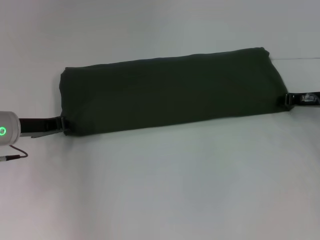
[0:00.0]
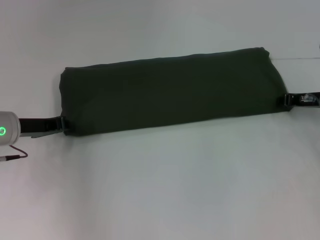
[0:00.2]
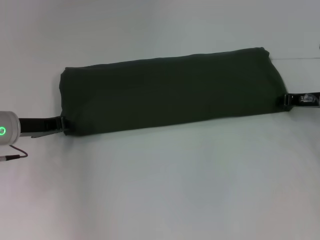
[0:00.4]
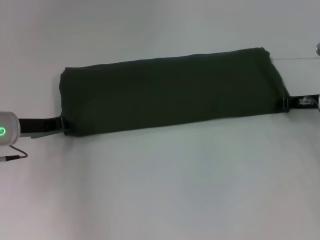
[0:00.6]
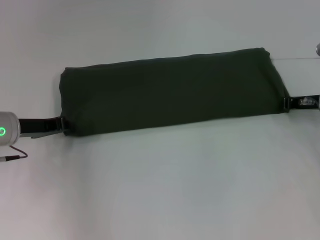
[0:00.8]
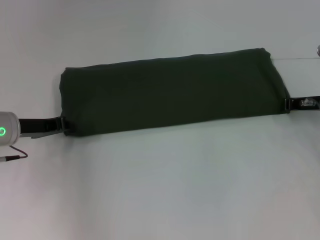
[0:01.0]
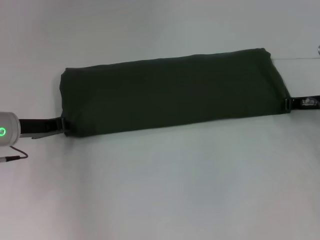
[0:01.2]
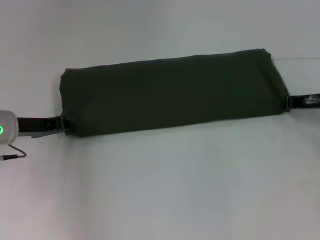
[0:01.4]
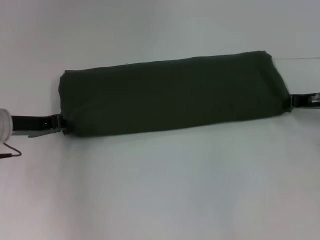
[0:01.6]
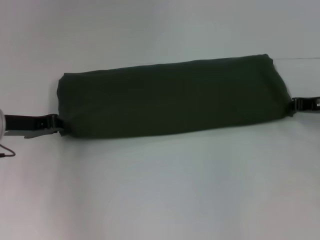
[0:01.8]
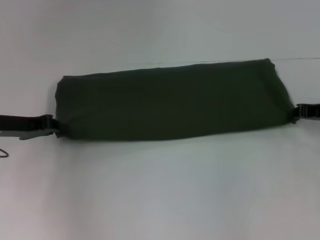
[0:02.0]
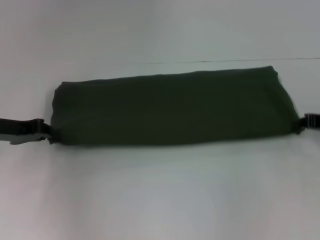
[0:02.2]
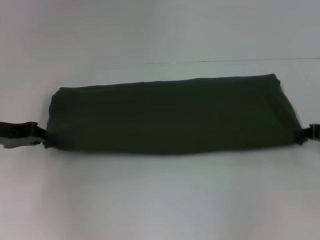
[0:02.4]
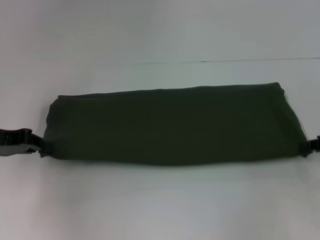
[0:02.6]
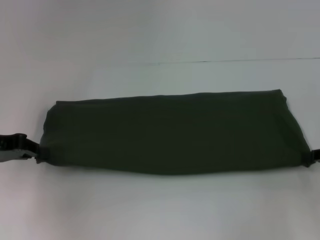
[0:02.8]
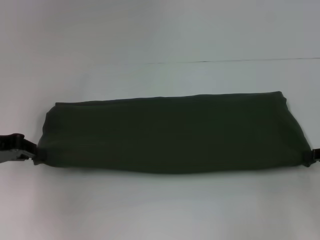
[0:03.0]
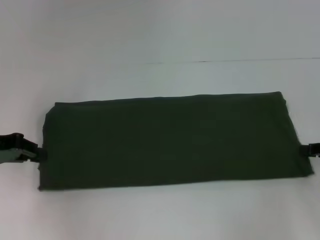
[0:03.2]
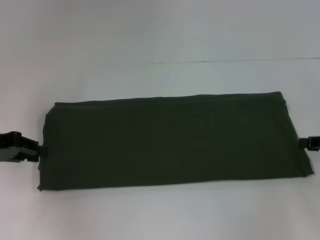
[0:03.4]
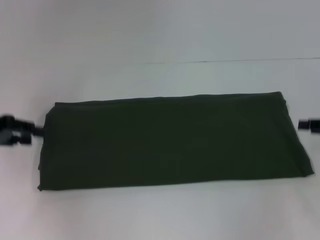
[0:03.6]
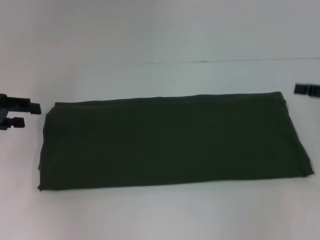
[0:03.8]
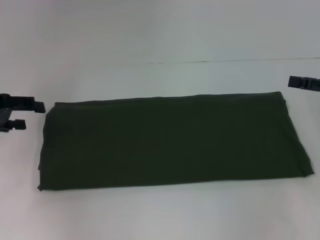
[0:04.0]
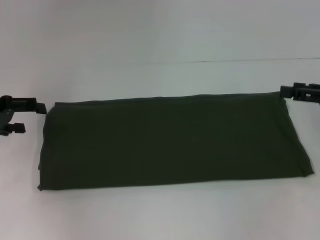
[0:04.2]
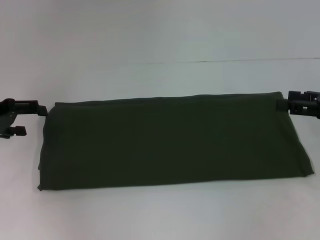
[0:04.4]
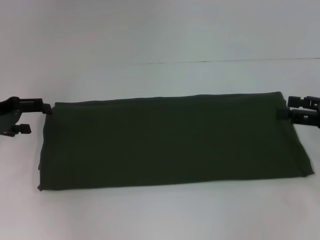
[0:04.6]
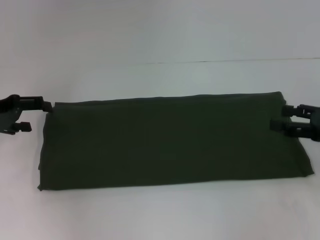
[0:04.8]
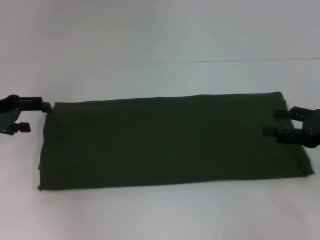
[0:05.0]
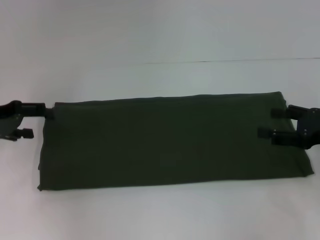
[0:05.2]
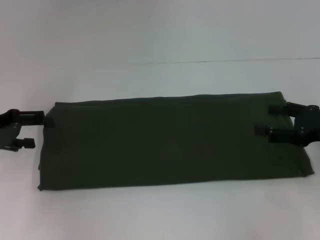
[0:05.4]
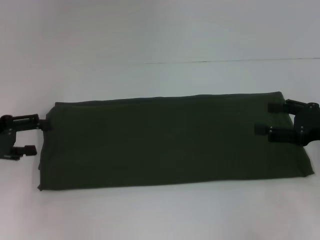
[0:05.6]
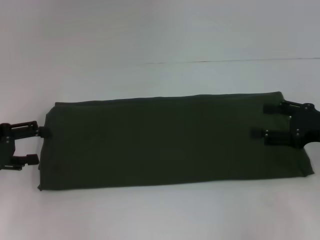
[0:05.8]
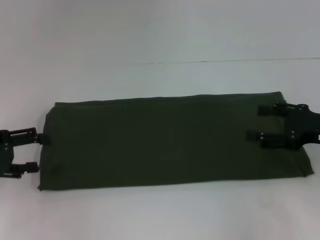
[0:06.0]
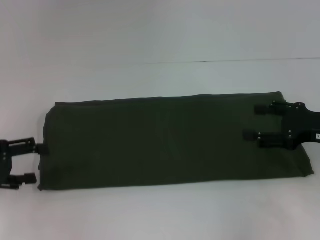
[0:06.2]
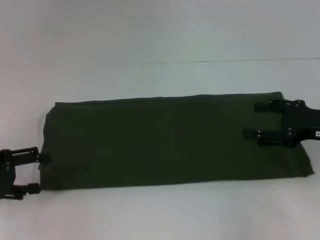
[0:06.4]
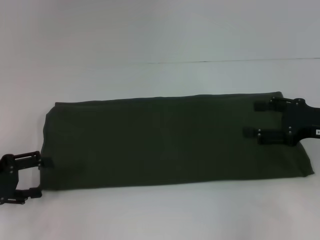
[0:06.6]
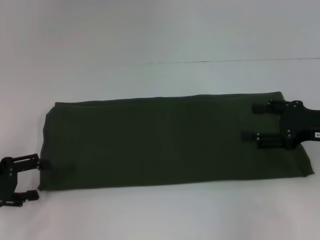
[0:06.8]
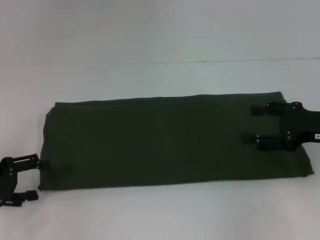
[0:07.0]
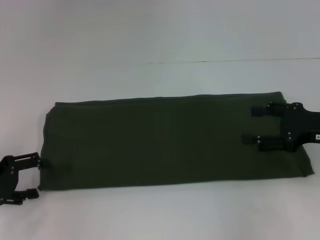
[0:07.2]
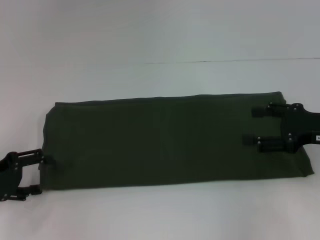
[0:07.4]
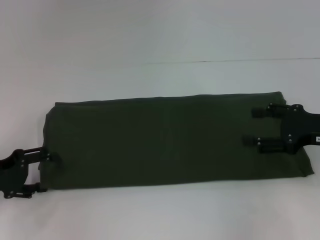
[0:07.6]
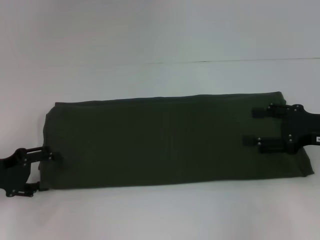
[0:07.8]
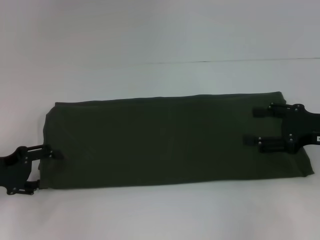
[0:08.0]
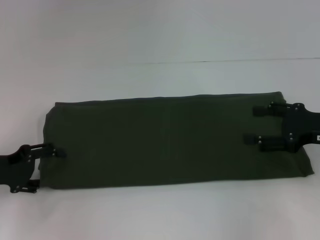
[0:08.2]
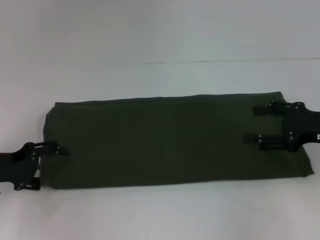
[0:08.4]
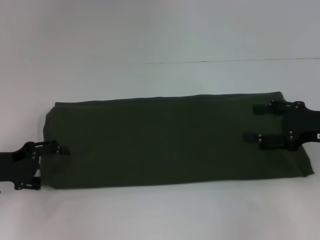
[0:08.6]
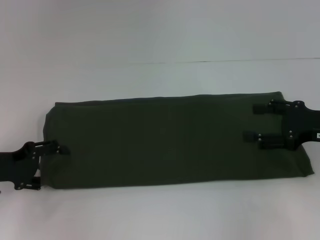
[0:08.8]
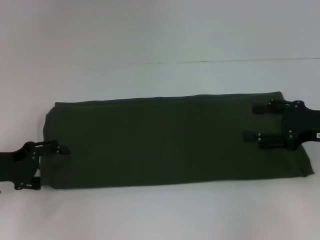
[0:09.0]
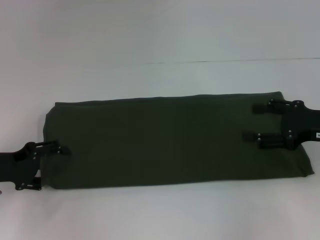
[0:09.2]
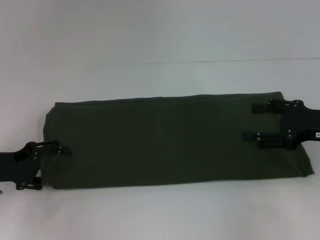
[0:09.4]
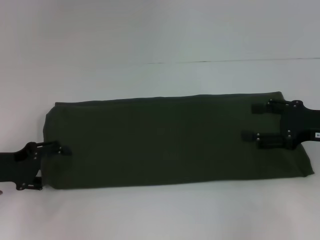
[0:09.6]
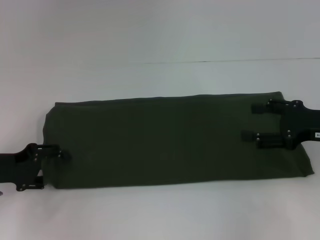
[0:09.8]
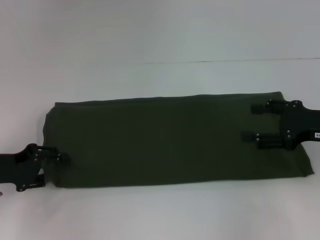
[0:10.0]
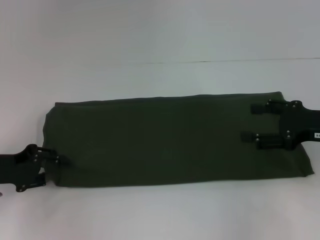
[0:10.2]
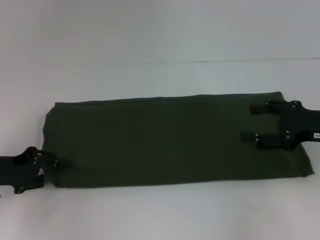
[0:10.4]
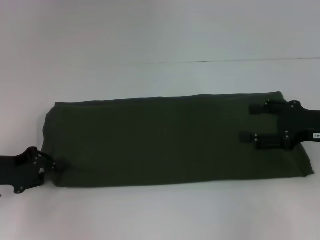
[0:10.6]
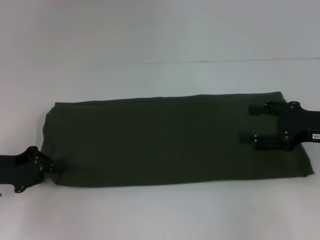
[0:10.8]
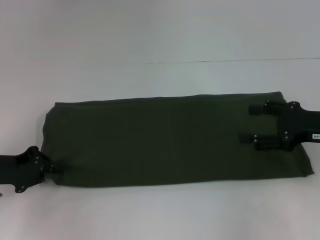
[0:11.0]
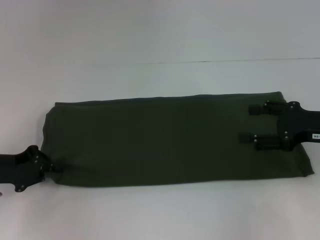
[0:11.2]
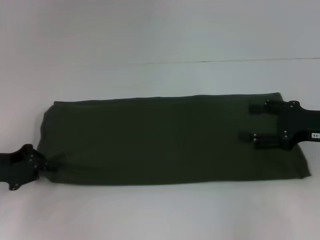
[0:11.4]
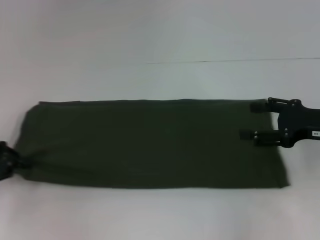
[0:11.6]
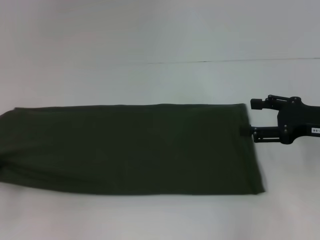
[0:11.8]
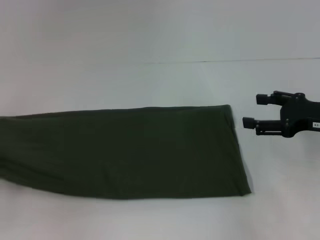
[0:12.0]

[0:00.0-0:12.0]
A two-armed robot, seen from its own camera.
Step, 0:00.0 to 0:03.4: Pull the clothes with your left hand.
Step, 0:00.0 to 0:03.4: Pull the clothes with your right hand.
0:00.0 to 0:01.6: The grippers make only small movements.
0:01.6 to 0:03.0: The right gripper moves backward, some 10 cm. Meanwhile the left gripper heads to the left, covering some 5 cm.
0:03.0 to 0:04.4: The left gripper opens; the right gripper changes place by some 5 cm, and opens its fingers.
0:04.4 to 0:06.0: The left gripper heads backward, covering about 5 cm.
0:06.0 to 0:09.0: The grippers make only small movements.
0:09.0 to 0:10.4: The left gripper closes its fingers.
0:10.4 to 0:12.0: The left gripper is displaced to the left and upward by approximately 10 cm, and closes up.

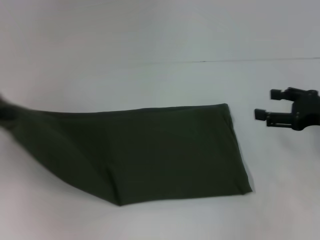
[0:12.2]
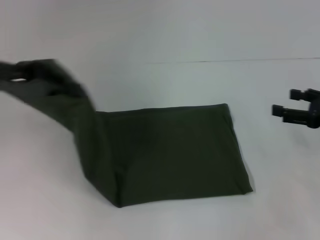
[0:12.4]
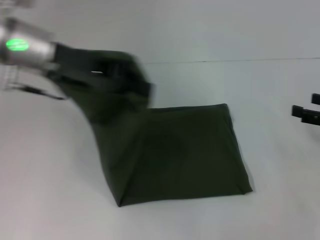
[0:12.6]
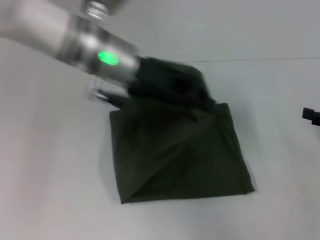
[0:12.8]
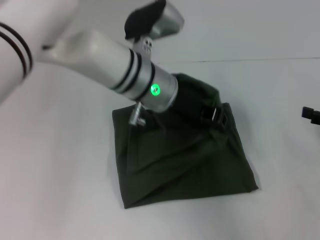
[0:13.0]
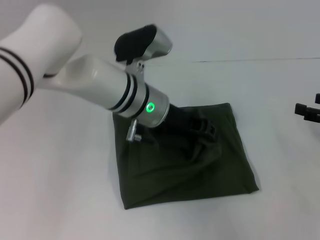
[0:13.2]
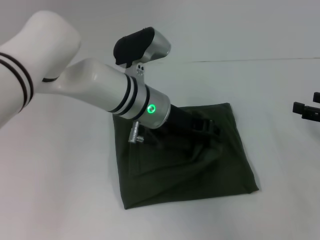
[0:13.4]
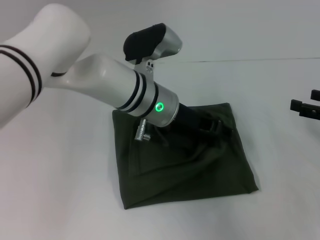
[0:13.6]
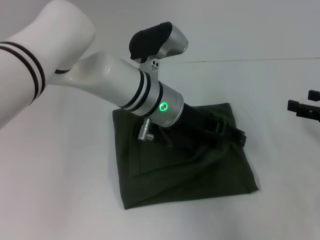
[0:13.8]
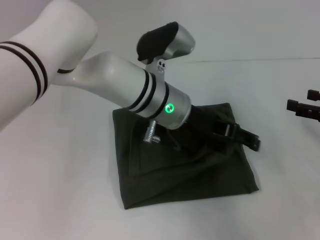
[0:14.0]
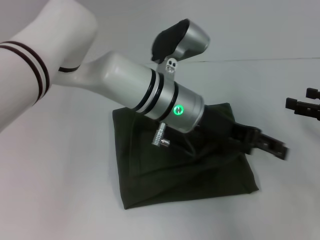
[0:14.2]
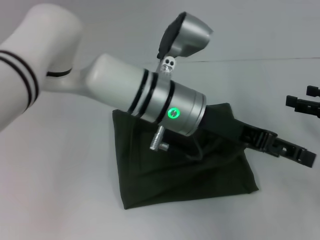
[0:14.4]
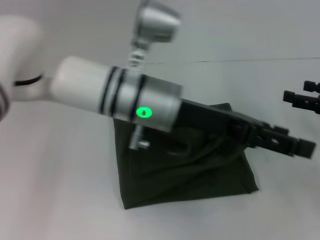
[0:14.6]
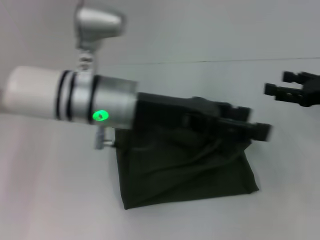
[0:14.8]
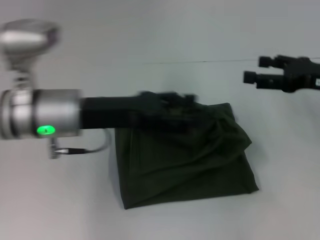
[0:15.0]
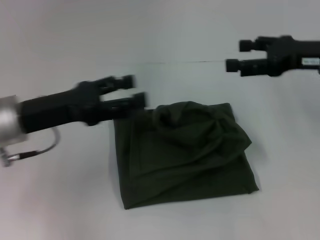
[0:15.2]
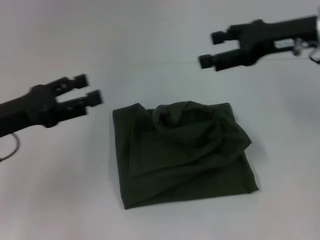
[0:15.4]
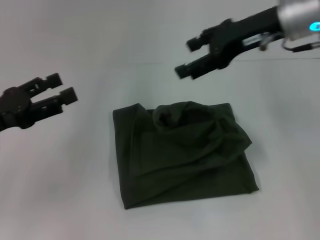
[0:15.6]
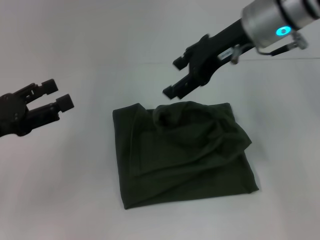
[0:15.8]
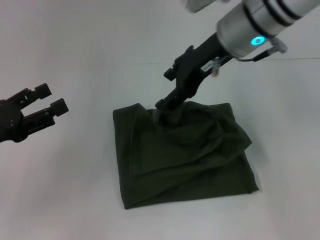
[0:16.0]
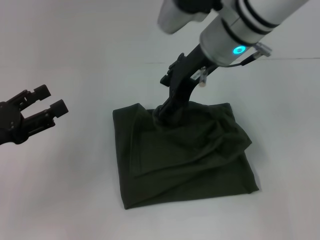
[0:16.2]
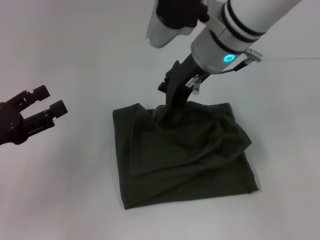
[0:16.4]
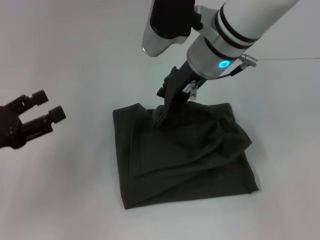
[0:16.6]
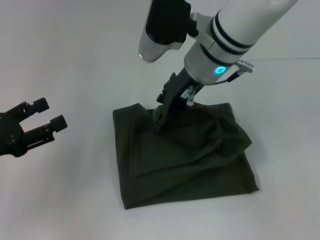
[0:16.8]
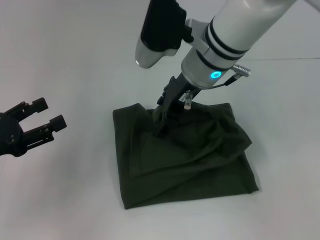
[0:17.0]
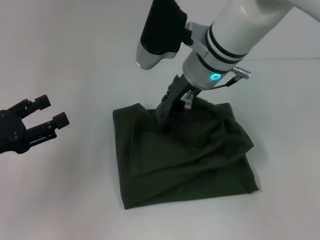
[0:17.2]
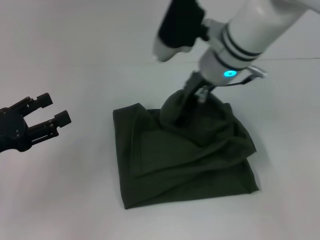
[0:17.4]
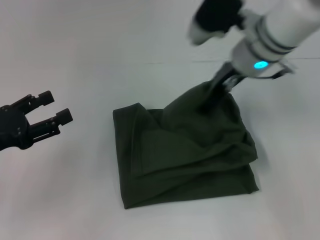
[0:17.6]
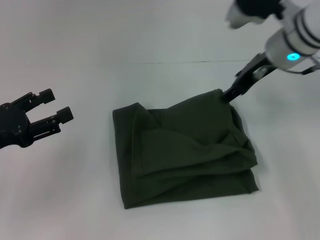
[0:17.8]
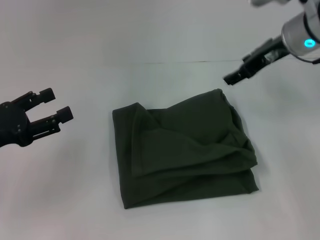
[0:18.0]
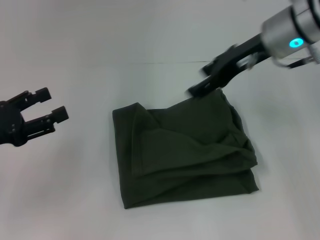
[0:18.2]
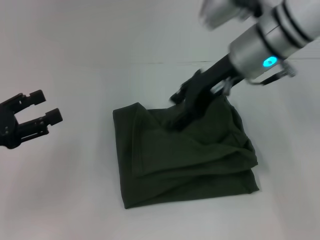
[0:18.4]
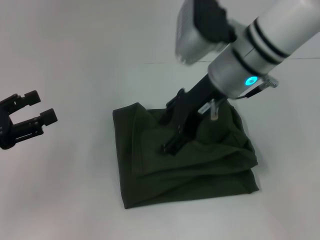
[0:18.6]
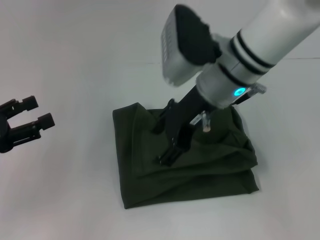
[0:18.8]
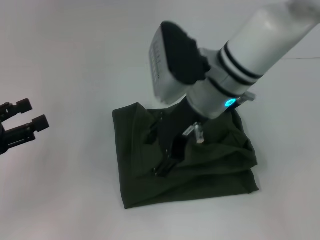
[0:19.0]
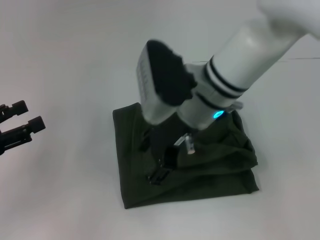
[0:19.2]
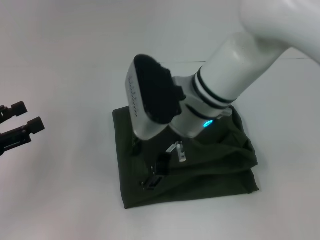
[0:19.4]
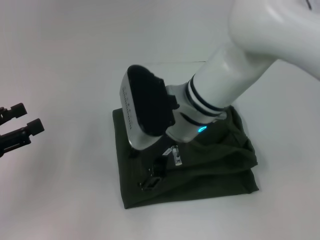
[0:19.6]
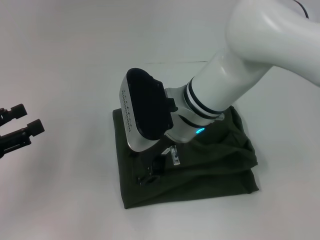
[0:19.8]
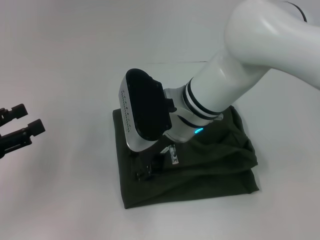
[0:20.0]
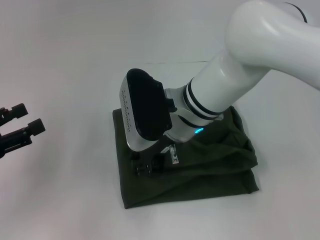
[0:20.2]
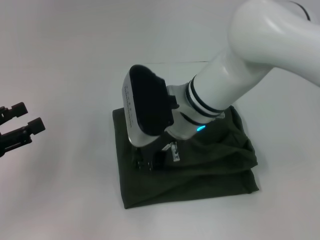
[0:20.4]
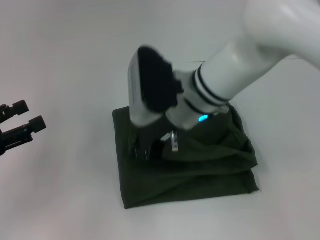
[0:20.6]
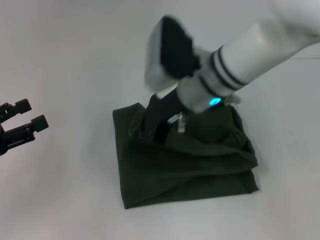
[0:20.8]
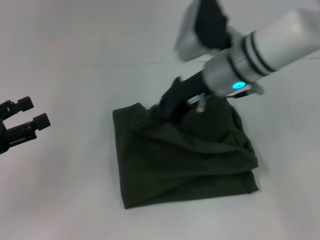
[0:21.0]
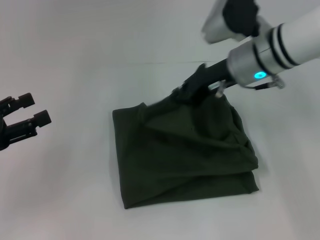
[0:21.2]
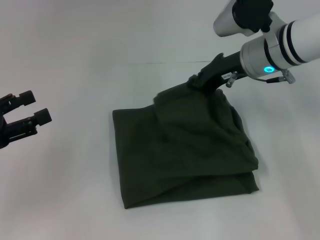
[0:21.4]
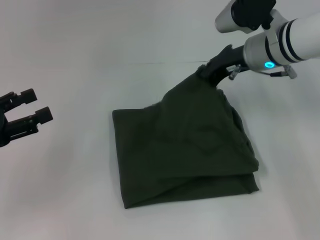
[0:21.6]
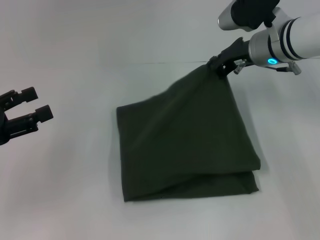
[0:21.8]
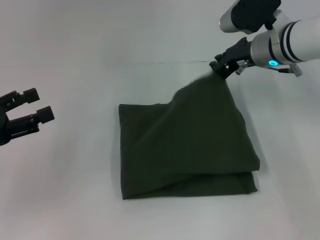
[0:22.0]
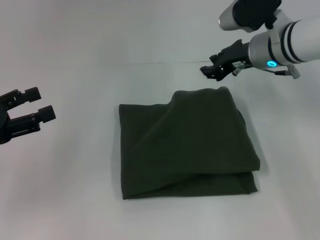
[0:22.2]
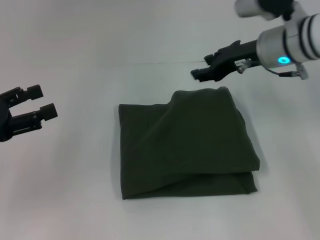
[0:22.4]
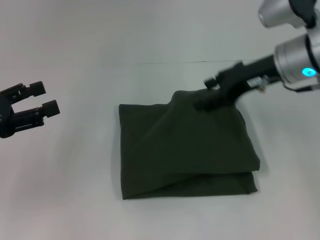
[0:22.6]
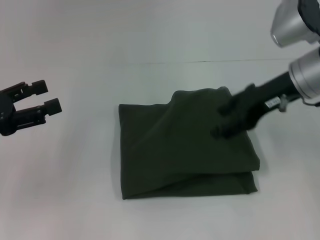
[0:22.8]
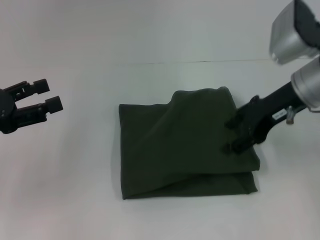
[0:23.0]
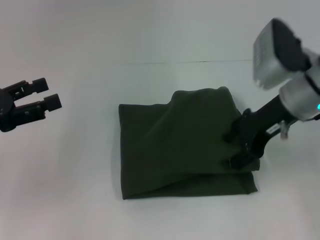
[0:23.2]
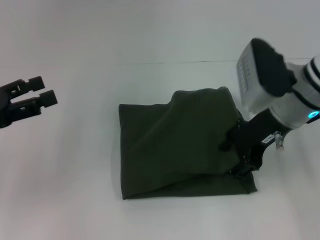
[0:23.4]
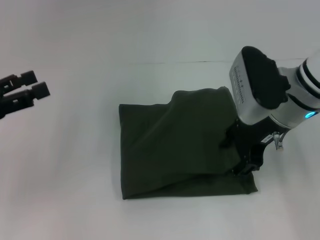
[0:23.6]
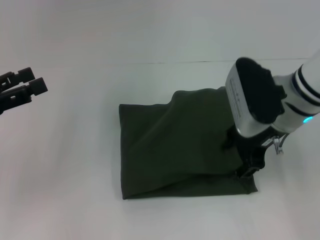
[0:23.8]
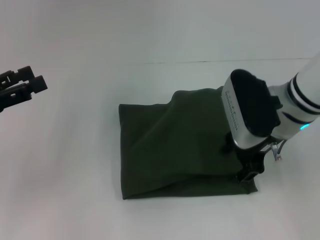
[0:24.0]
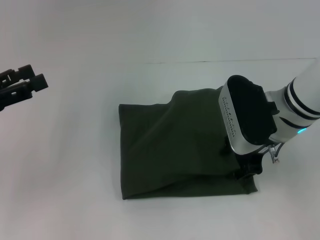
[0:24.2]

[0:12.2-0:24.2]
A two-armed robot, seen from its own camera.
Step, 0:12.2 to 0:22.4: Fold the clothes with your left hand.
0:12.2 to 0:13.8: The left gripper shifts roughly 35 cm to the right, and opens up.
0:13.8 to 0:15.2: The left gripper moves to the left, roughly 20 cm. The right gripper moves upward, to the left and forward, about 15 cm.
0:15.2 to 0:16.6: The right gripper heads to the left, covering some 20 cm. Meanwhile the left gripper goes roughly 10 cm to the left.
0:16.6 to 0:18.2: The right gripper moves to the right, roughly 10 cm.
0:18.2 to 0:19.8: The right gripper goes approximately 15 cm to the left, downward and backward.
0:19.8 to 0:21.2: The right gripper moves to the right and forward, some 15 cm, and closes up.
0:21.2 to 0:22.6: The right gripper travels to the right by about 5 cm, and opens.
0:22.6 to 0:24.2: The right gripper moves about 5 cm.
